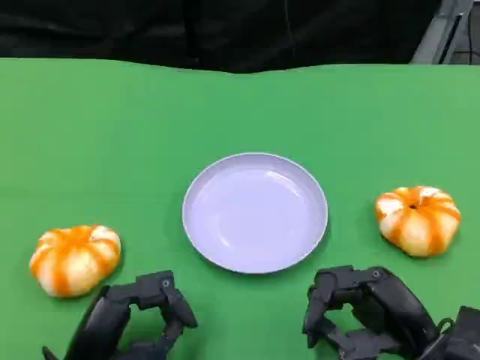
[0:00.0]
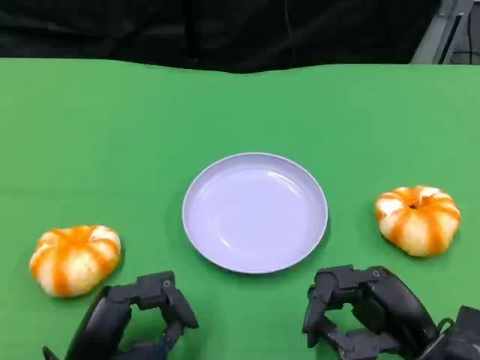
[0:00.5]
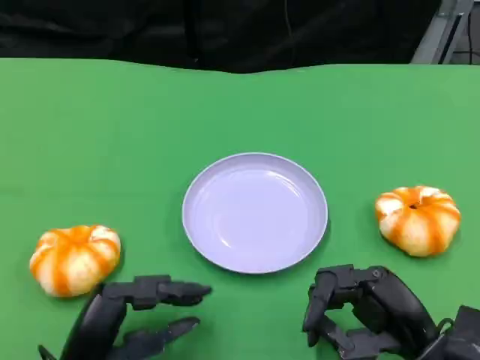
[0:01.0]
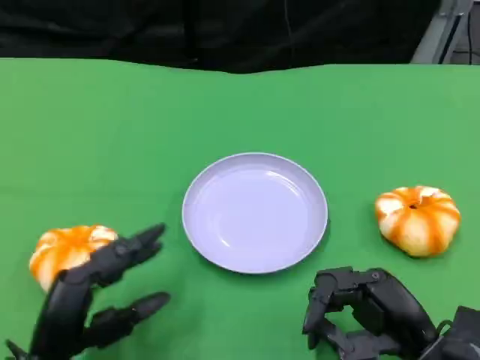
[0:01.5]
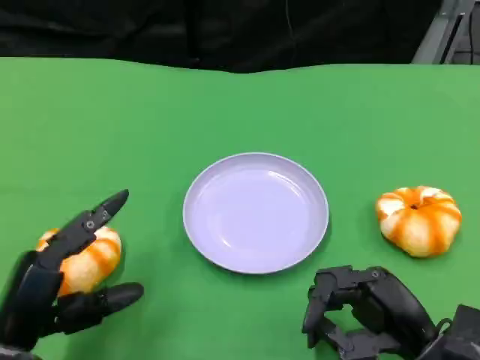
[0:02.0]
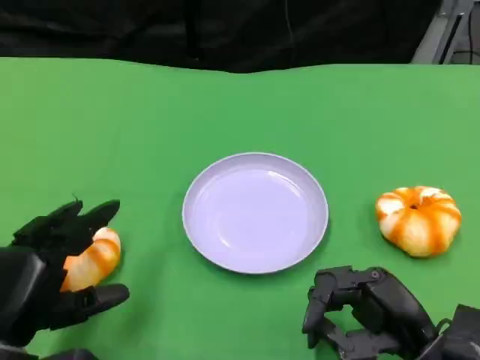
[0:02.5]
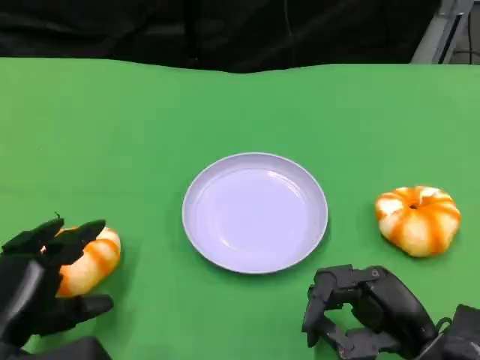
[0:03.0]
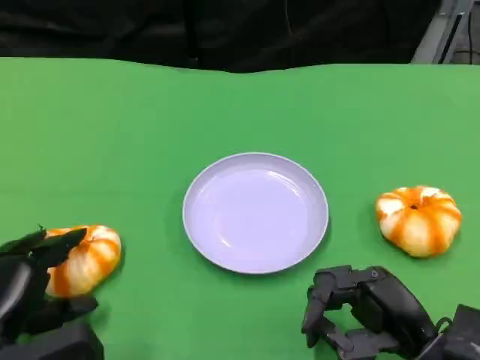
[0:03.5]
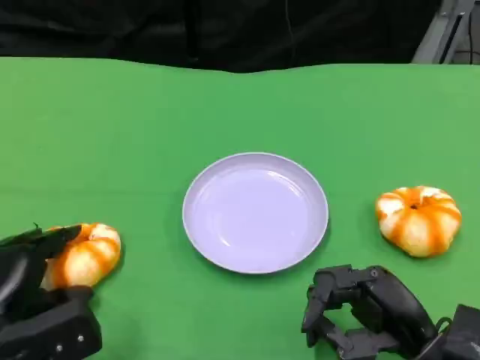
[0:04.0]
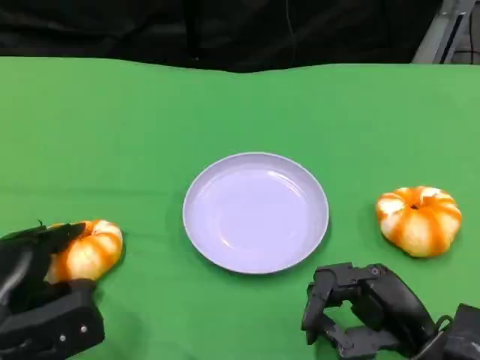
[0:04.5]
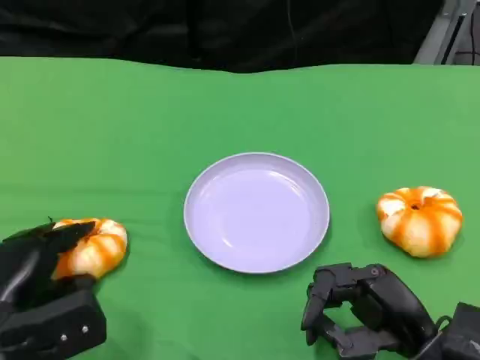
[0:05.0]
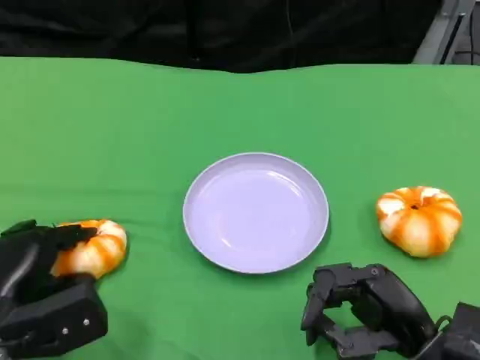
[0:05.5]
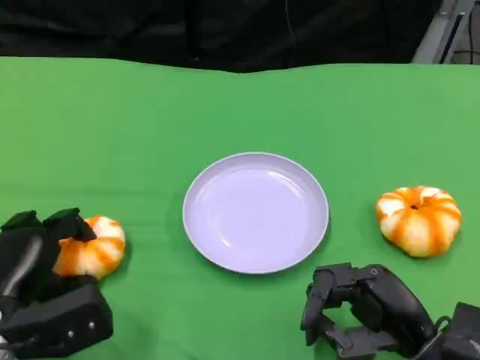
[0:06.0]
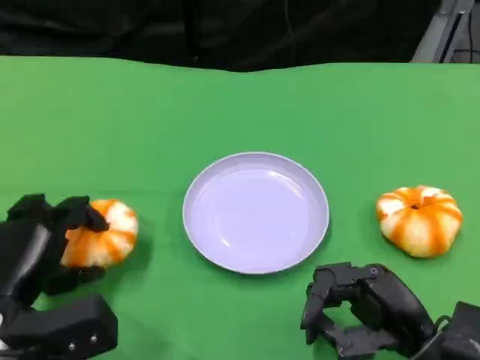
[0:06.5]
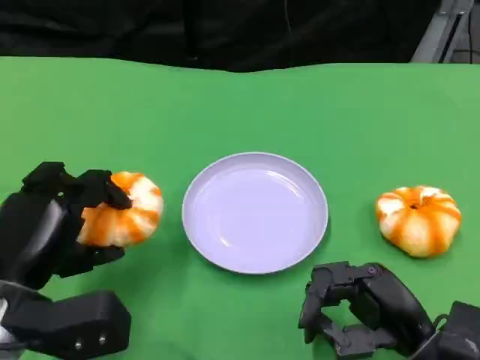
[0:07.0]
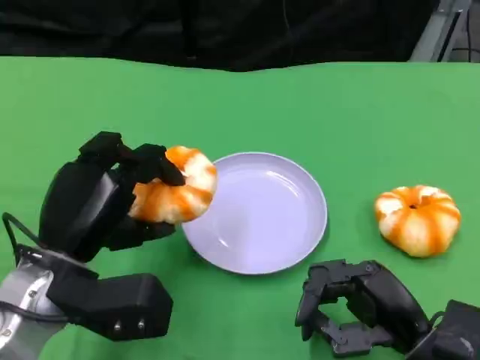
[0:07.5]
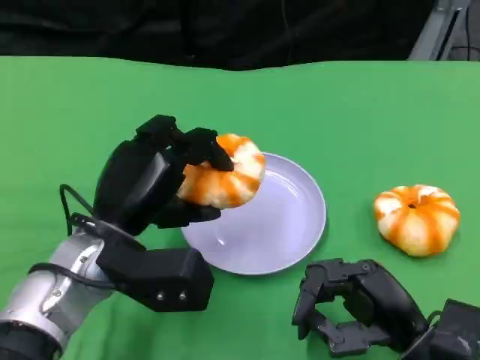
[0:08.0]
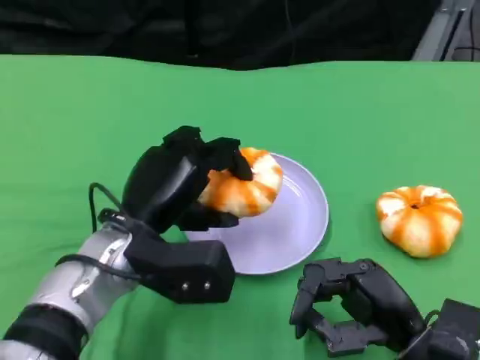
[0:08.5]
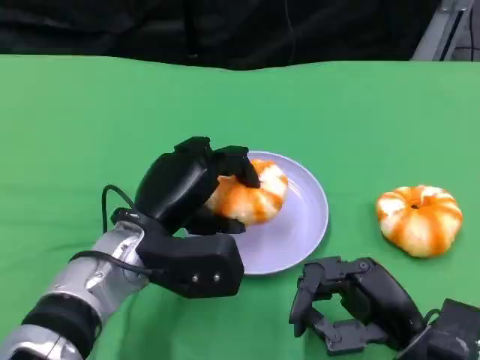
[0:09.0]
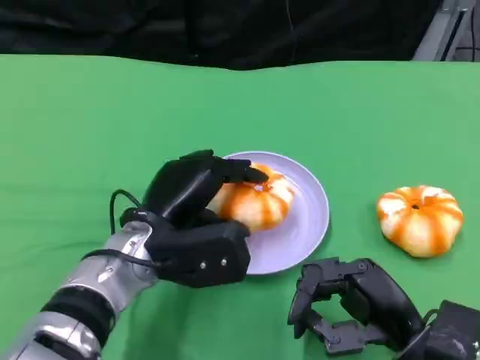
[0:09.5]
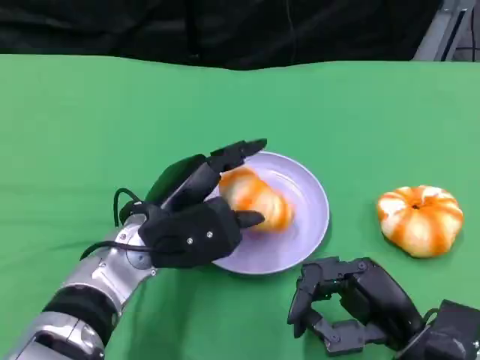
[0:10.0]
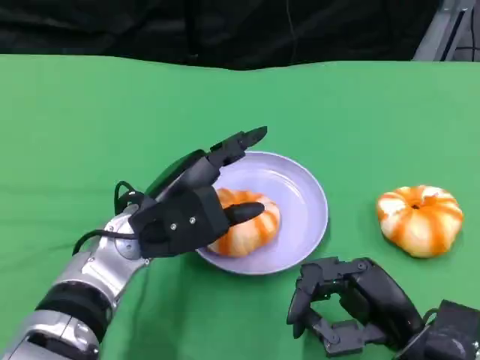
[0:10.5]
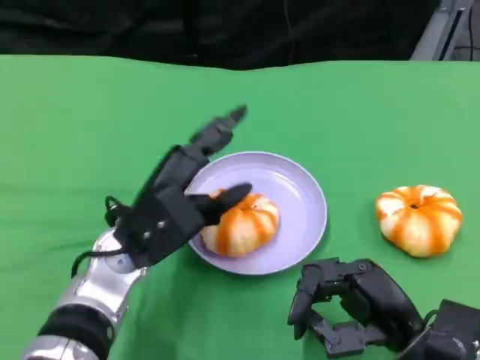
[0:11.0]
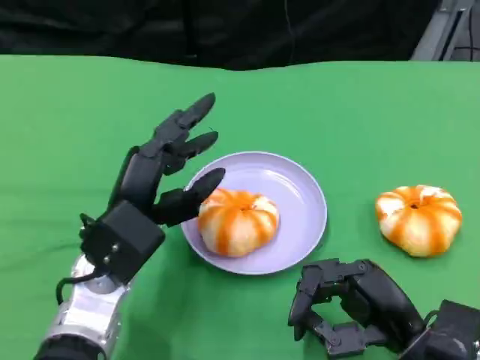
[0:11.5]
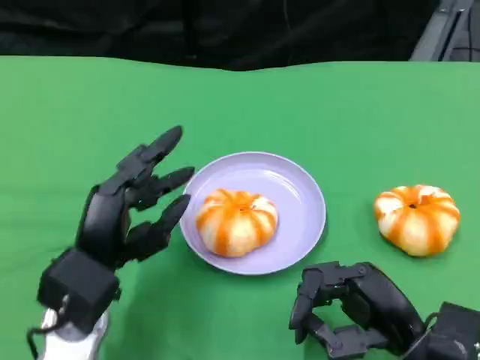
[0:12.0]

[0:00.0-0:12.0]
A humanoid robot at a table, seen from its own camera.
Task of the whole recording: Grasp the bread from the table and place it into the plate.
0:00.0 to 0:02.0: The left hand travels to the left by approximately 5 cm.
0:02.0 to 0:04.0: The left hand moves roughly 5 cm.
0:04.0 to 0:06.0: The hands make only small movements.
0:06.0 to 0:08.0: The left hand heads to the right and upward, covering about 15 cm.
0:10.0 to 0:12.0: The left hand heads backward and to the left, covering about 10 cm.

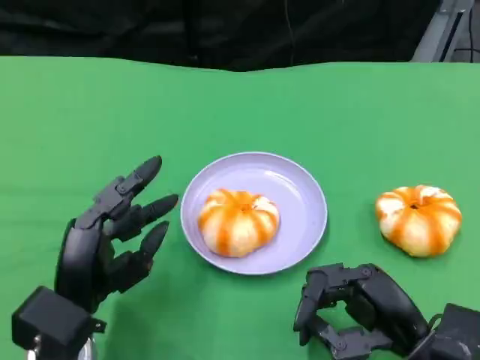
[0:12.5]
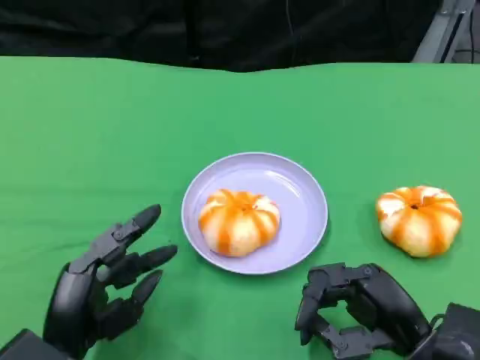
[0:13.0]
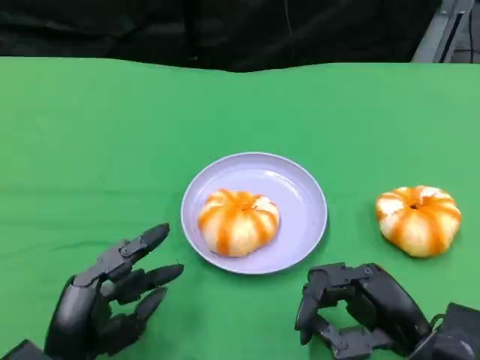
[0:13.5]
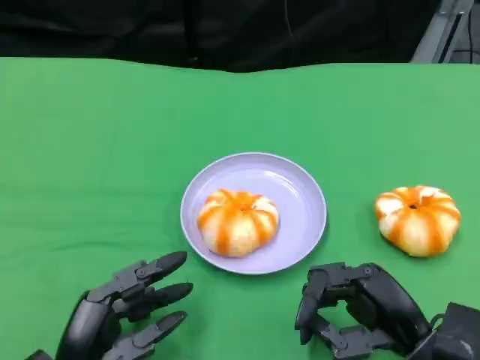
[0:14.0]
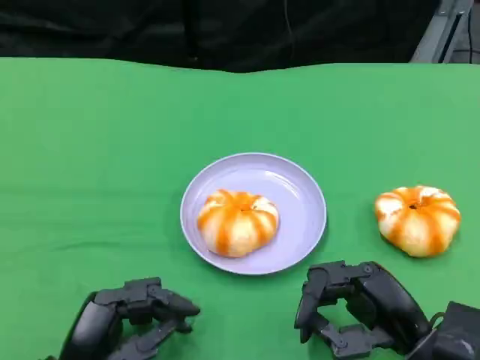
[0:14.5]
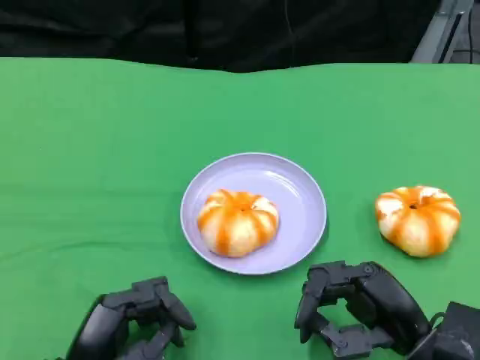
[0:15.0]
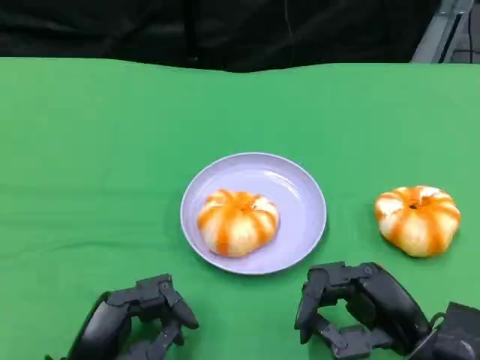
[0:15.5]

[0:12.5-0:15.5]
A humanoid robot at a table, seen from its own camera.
Task of the whole recording: Grasp the bread from the table and place it into the plate.
0:12.5 to 0:14.0: The left hand shifts by roughly 5 cm.
0:14.0 to 0:15.5: There are only small adjustments of the hands.

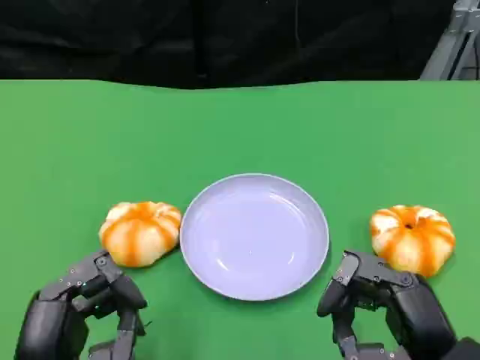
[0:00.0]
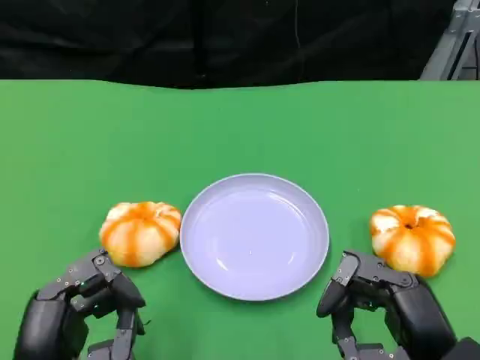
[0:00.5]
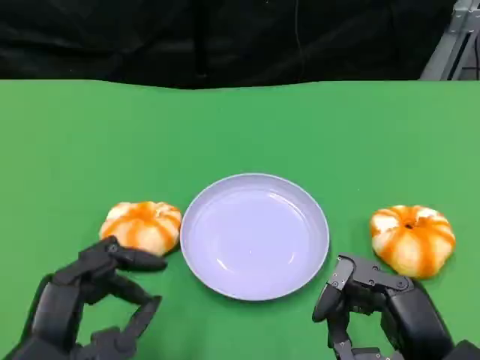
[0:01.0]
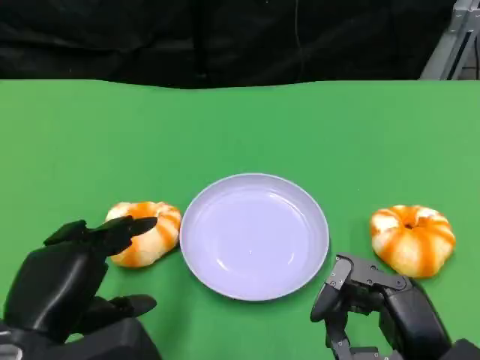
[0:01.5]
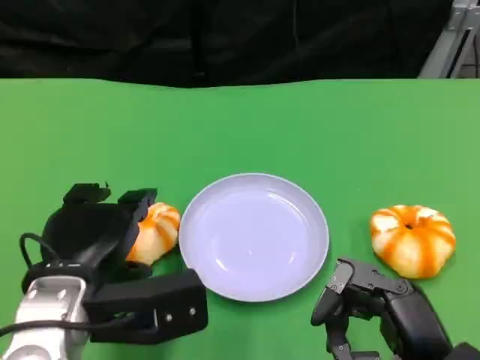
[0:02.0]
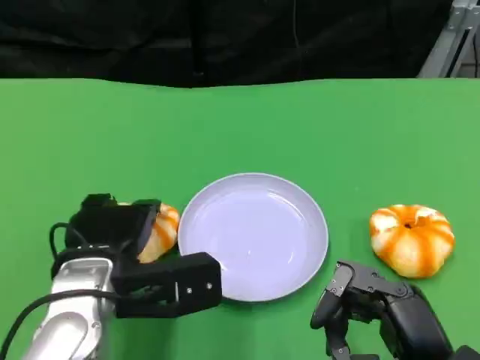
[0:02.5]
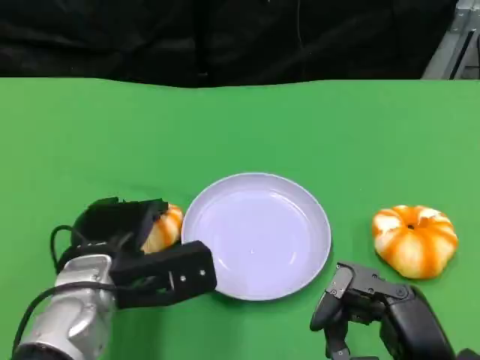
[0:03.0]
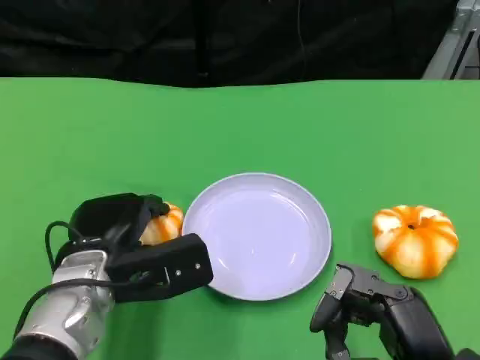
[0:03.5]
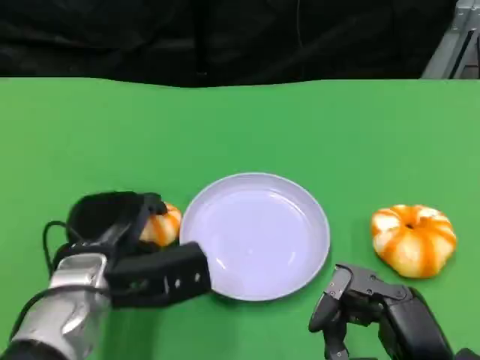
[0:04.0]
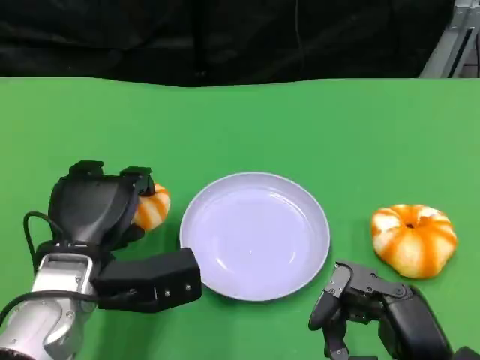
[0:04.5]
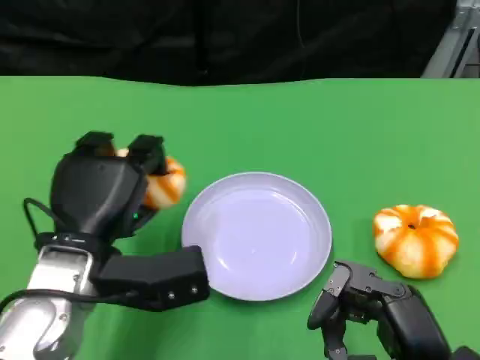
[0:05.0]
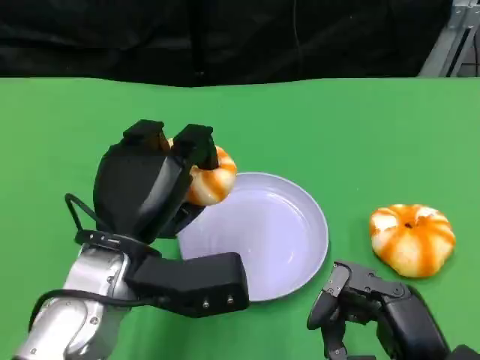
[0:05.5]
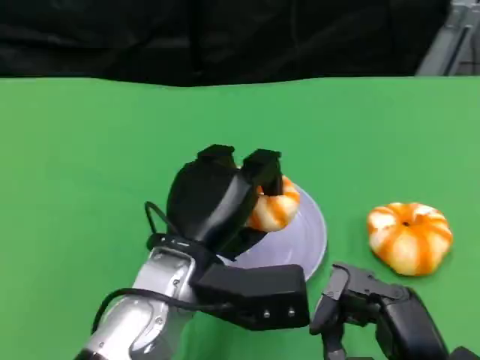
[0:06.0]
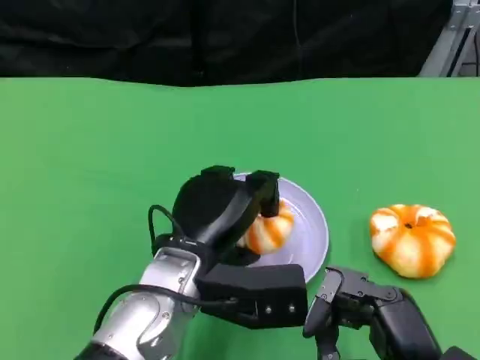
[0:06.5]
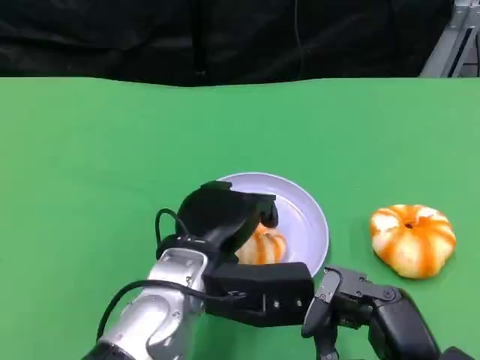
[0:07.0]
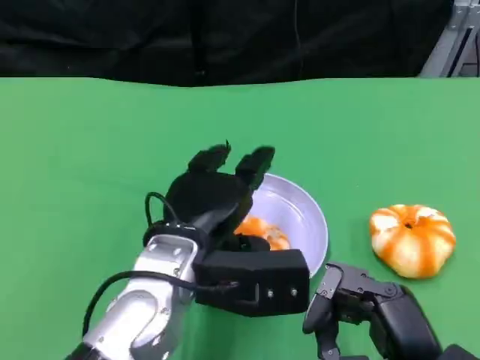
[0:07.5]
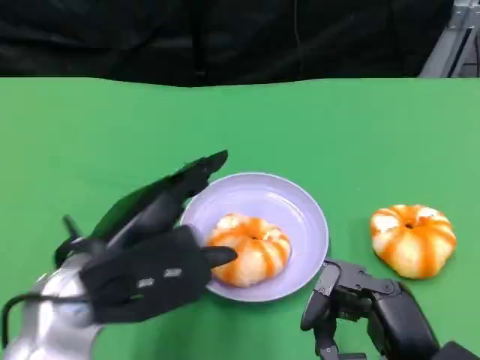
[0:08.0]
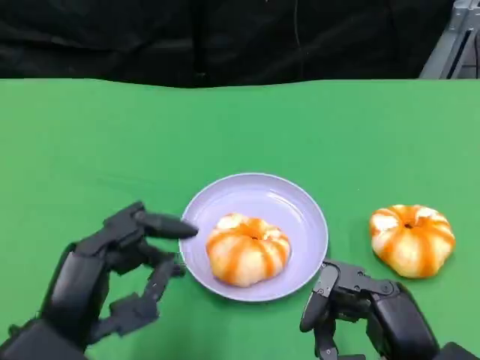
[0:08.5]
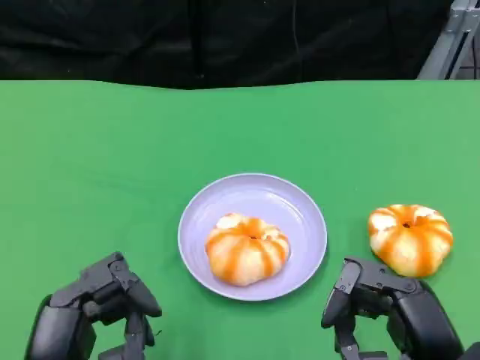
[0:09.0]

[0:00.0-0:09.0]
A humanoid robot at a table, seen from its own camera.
Task of the whole recording: Grasp the bread from the table and place it into the plate.
0:00.0 to 0:02.0: The left hand heads forward, covering approximately 10 cm.
0:02.0 to 0:04.5: The left hand moves roughly 5 cm.
0:04.5 to 0:07.0: The left hand is displaced to the right by some 10 cm.
0:07.0 to 0:09.0: The left hand heads backward and to the left, covering about 20 cm.

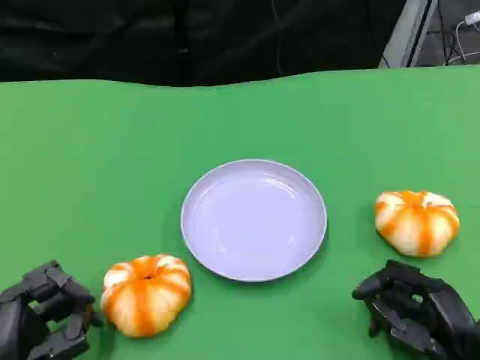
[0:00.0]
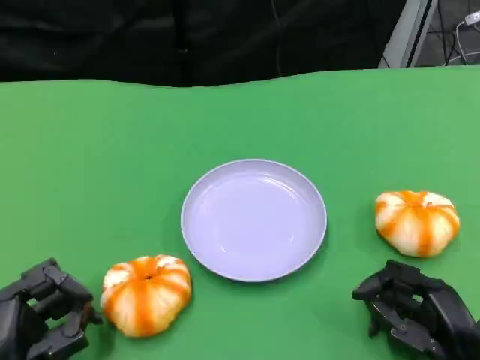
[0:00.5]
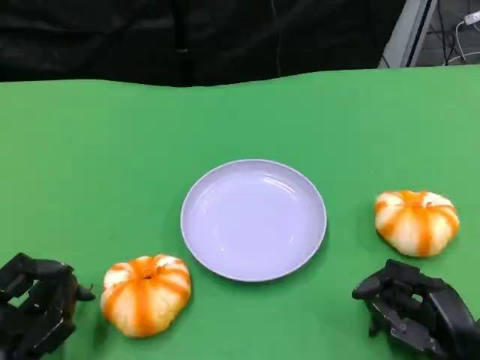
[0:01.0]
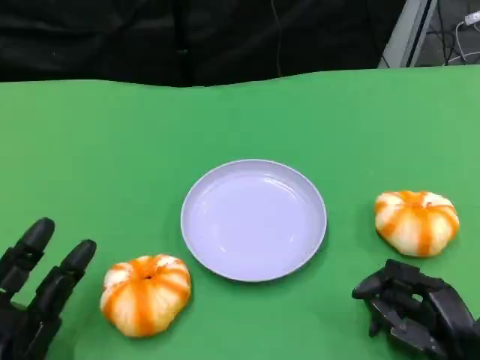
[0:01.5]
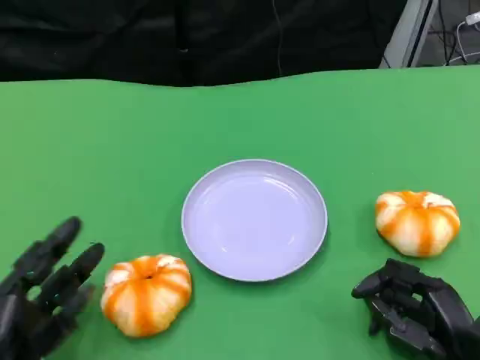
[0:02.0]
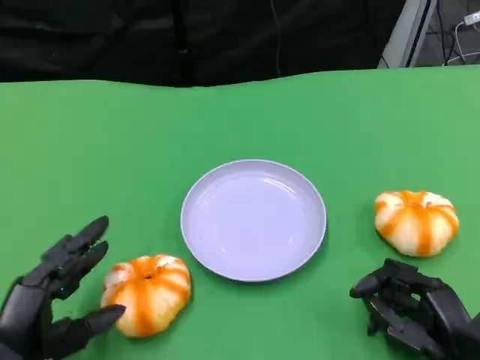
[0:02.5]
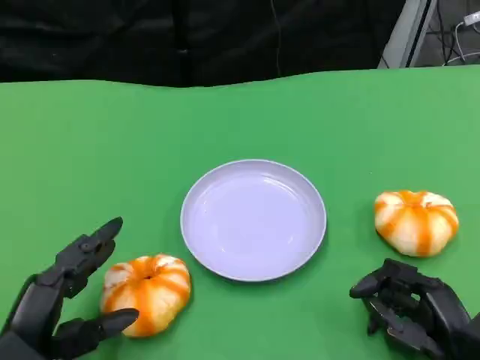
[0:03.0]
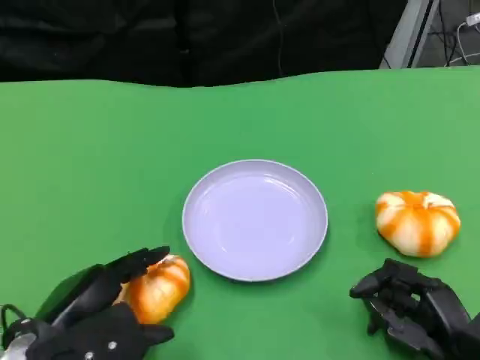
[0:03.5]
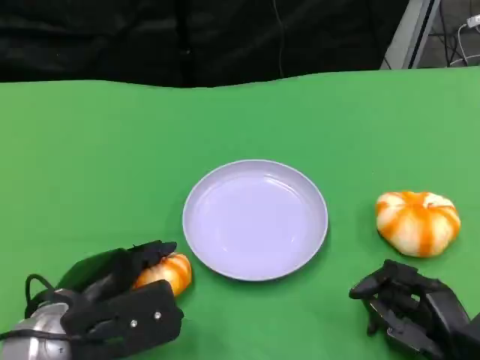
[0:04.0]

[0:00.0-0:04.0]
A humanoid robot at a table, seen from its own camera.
Task of the whole recording: Grasp the bread from the table and place it into the plate.
0:02.0 to 0:04.0: The left hand goes some 10 cm to the right, forward and upward.
